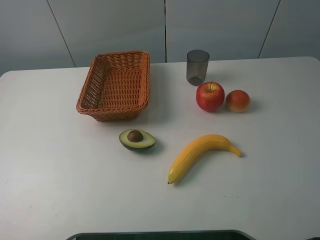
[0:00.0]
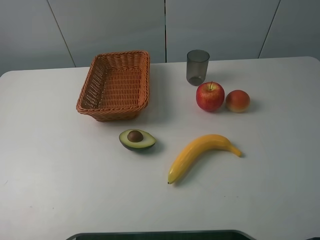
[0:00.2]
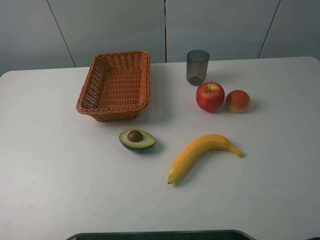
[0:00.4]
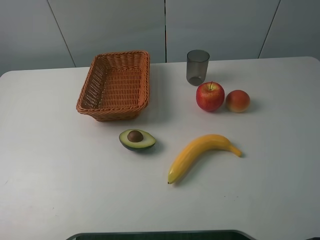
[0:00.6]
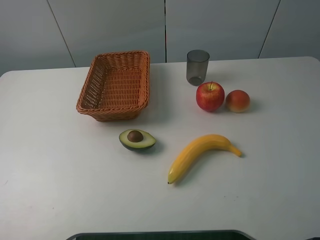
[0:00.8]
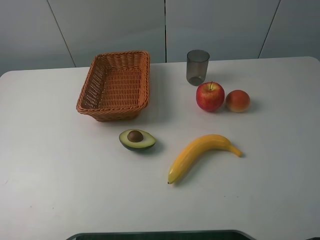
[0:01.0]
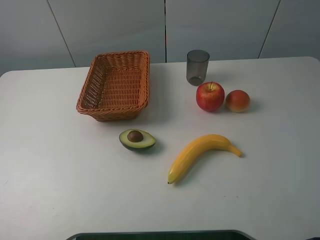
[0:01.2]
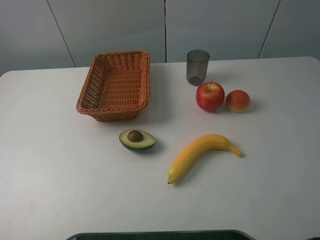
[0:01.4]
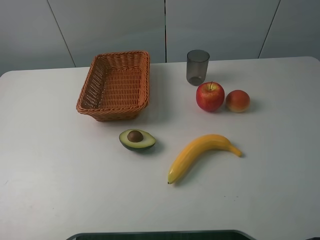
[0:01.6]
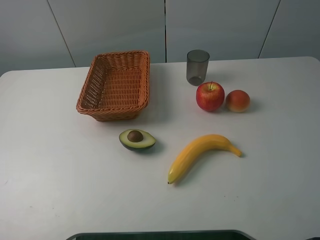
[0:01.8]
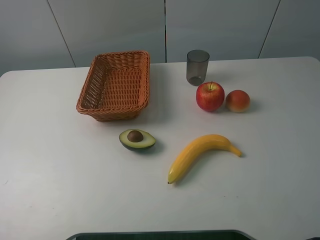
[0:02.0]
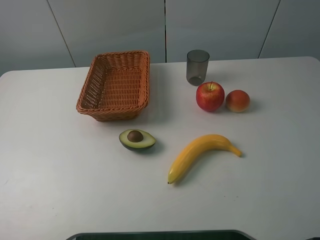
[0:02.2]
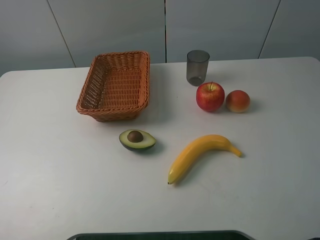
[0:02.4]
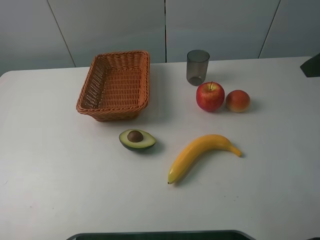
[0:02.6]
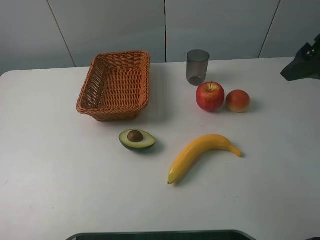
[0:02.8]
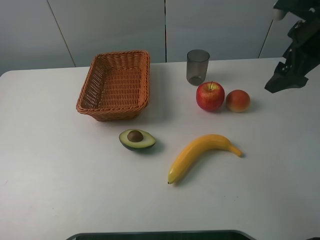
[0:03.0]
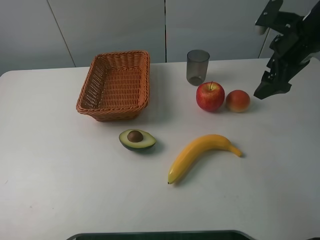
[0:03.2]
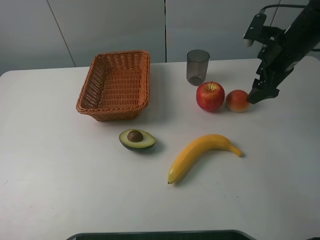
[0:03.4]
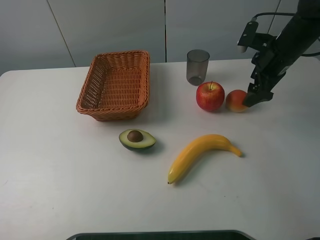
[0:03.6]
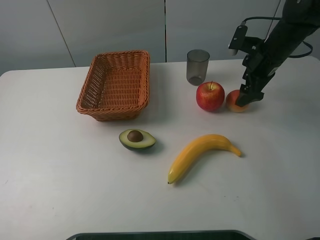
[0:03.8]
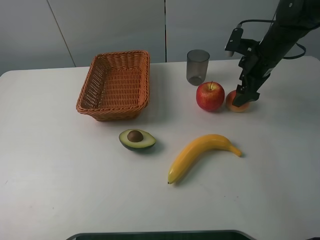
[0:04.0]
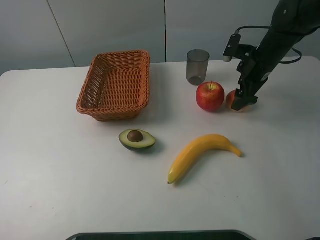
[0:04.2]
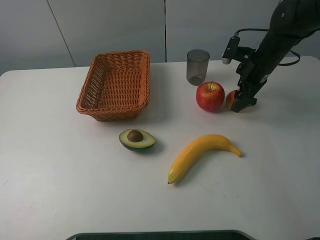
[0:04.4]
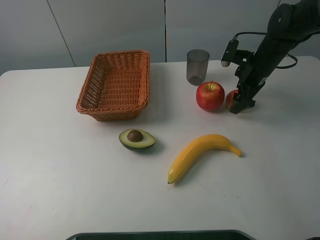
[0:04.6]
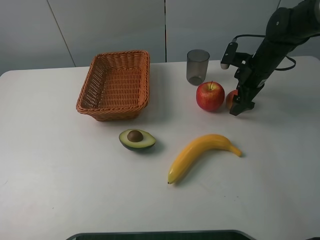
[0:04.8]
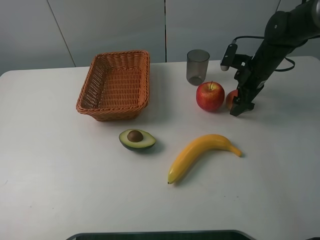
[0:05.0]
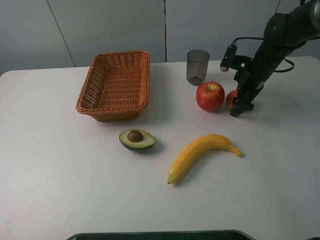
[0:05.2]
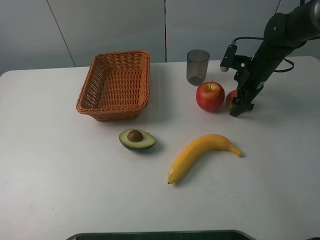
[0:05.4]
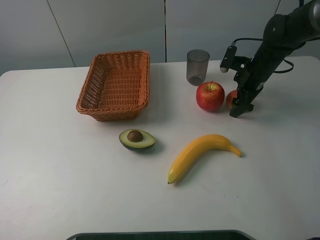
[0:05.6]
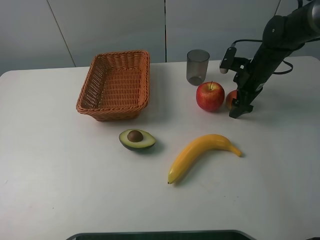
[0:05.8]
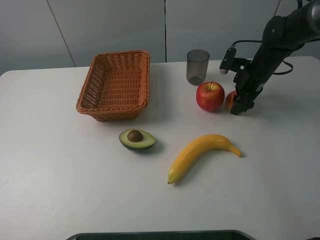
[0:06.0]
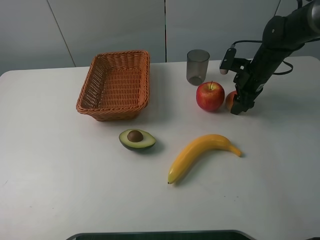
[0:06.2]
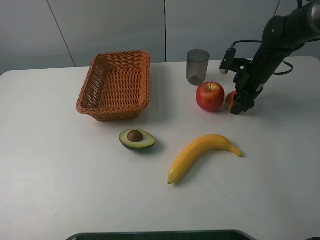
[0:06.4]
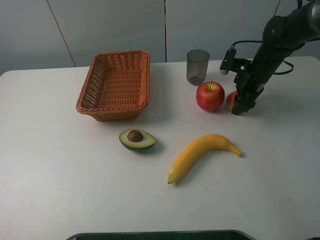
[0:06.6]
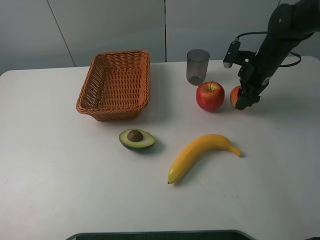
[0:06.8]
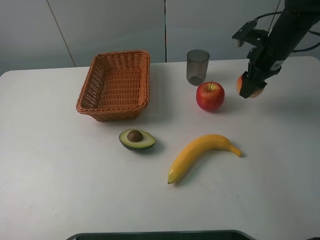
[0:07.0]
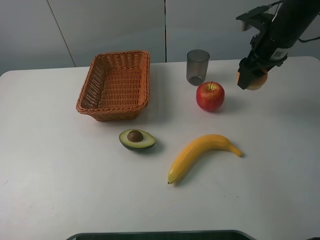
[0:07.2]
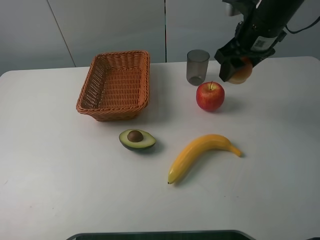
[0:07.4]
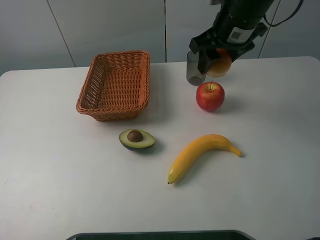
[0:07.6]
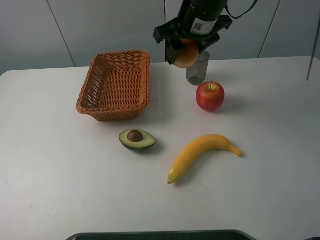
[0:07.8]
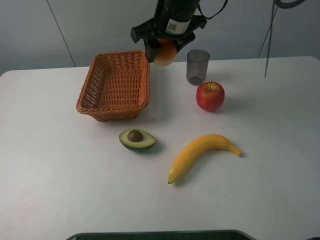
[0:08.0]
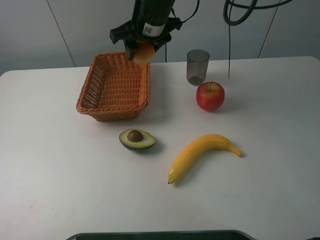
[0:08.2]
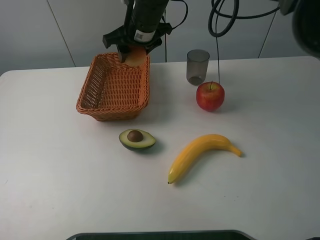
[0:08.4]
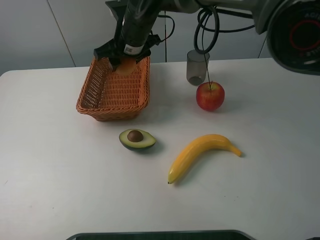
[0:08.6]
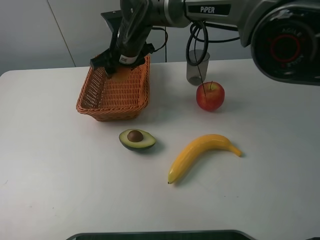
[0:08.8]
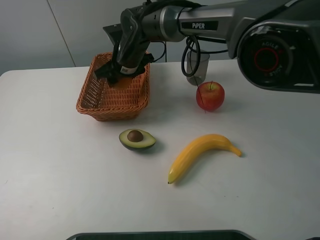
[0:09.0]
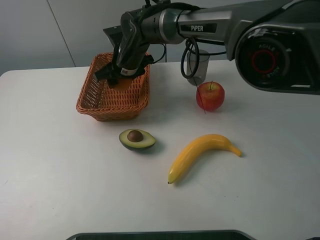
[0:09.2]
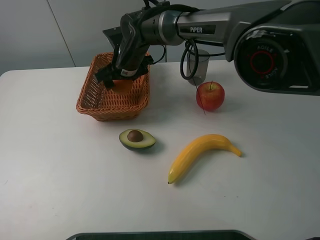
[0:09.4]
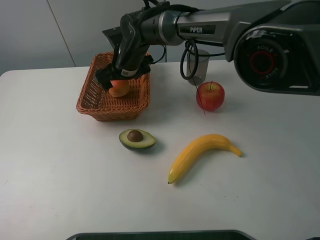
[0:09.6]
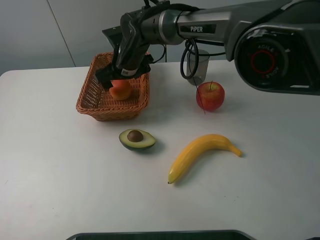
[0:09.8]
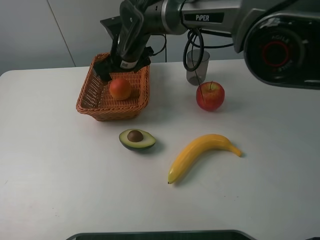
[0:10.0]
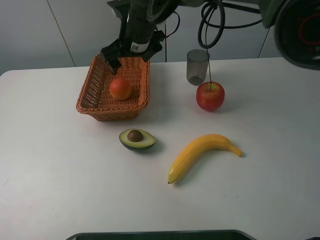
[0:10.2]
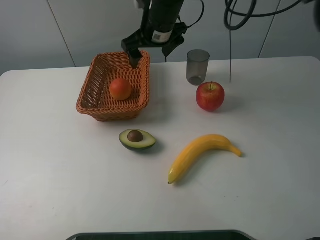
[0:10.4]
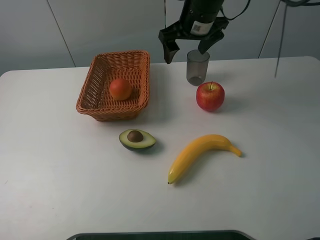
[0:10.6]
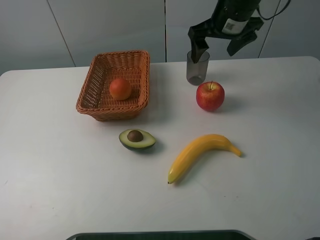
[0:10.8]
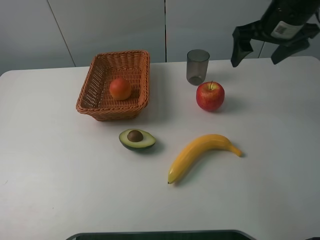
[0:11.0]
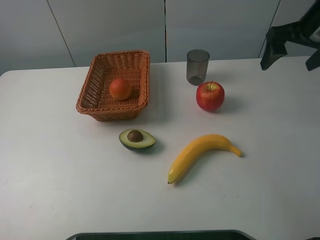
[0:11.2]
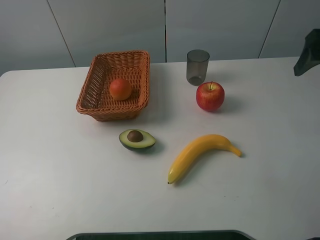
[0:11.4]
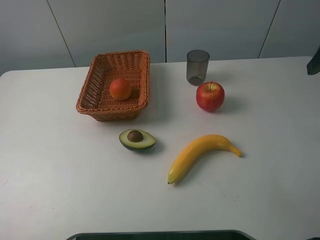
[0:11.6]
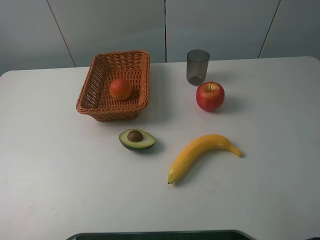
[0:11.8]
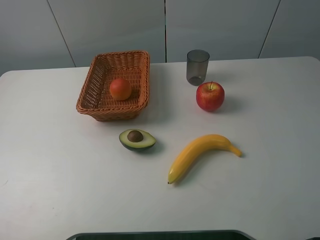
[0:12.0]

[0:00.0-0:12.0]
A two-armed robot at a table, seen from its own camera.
0:00.0 to 0:01.6: Both grippers stay put.
0:01.6 to 0:03.0: The right gripper heads forward, covering approximately 30 cm.
0:03.0 to 0:04.4: The right gripper moves downward and forward, about 15 cm.
0:04.4 to 0:06.0: The right gripper closes.
0:06.0 to 0:07.6: The right gripper is displaced upward and to the left by approximately 20 cm.
0:07.6 to 0:09.0: The right gripper heads to the left and downward, covering approximately 25 cm.
0:09.0 to 0:10.4: The right gripper is displaced upward and to the right by roughly 10 cm, and opens up.
0:10.4 to 0:12.0: The right gripper travels to the right and backward by approximately 40 cm.

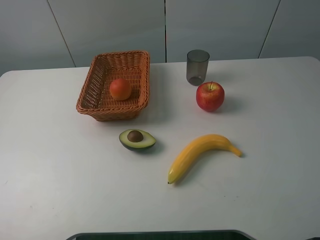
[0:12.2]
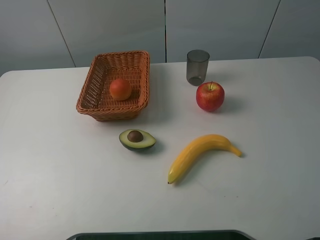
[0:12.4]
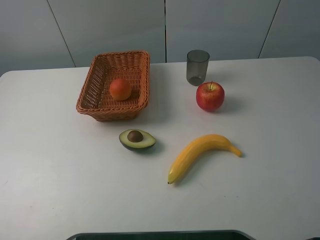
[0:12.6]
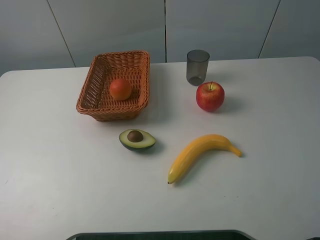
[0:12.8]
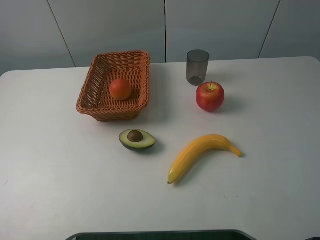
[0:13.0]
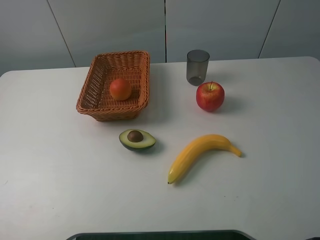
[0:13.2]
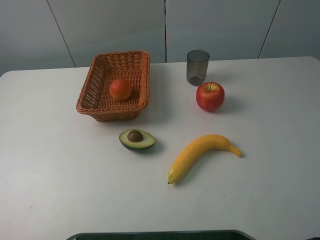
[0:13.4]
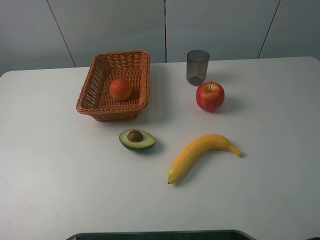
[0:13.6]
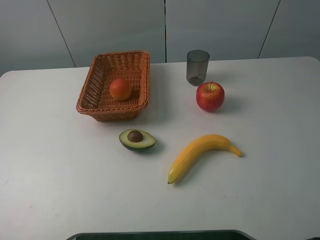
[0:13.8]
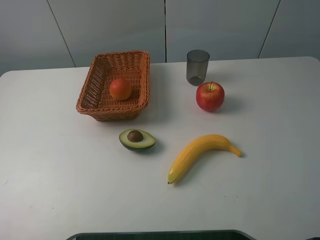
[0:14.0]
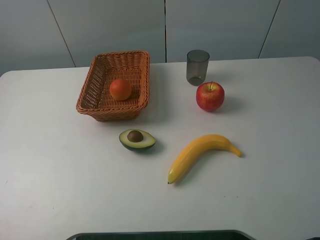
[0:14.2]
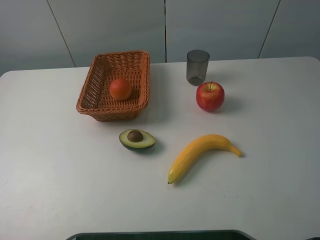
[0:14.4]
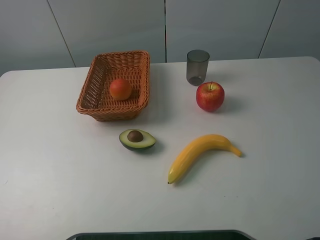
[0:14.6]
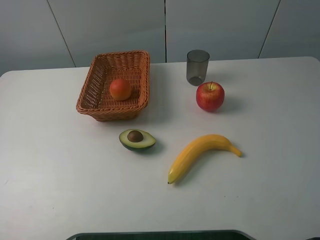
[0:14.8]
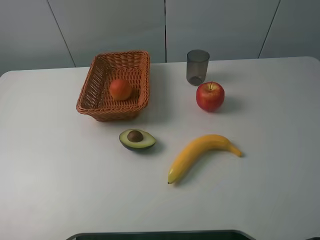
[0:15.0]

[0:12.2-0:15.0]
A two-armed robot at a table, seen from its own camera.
0:13.6 to 0:15.0: Neither gripper changes place.
